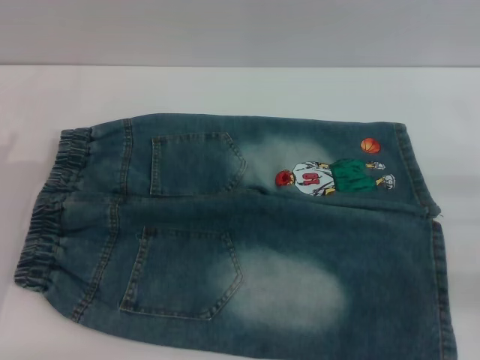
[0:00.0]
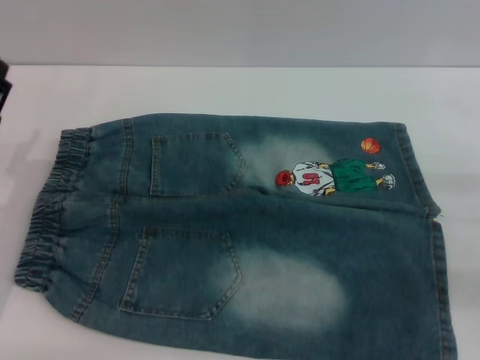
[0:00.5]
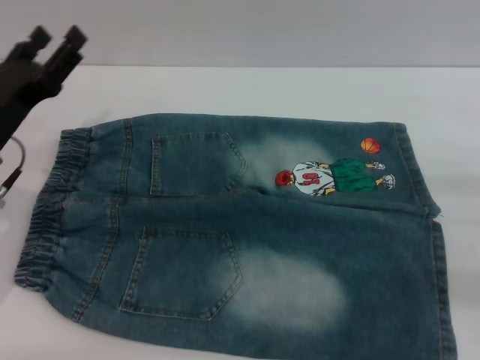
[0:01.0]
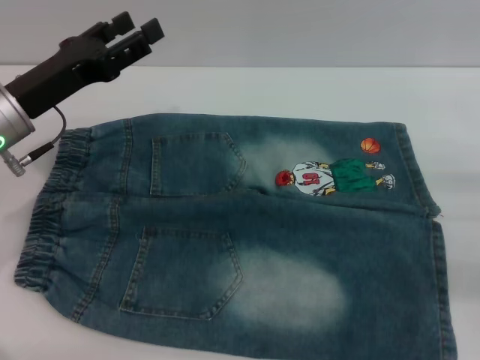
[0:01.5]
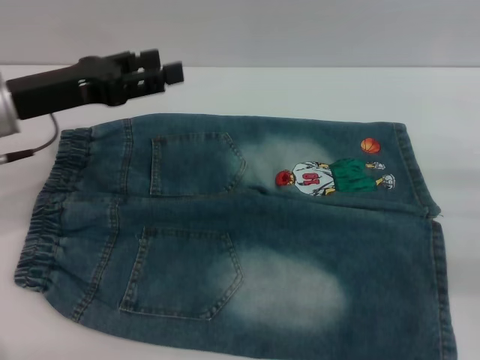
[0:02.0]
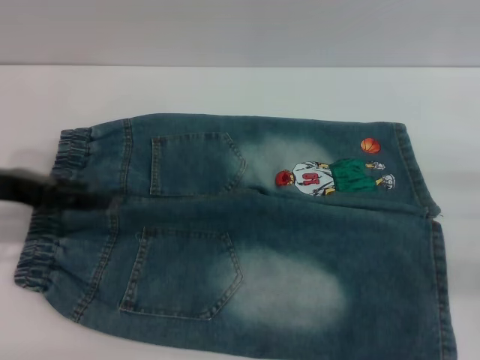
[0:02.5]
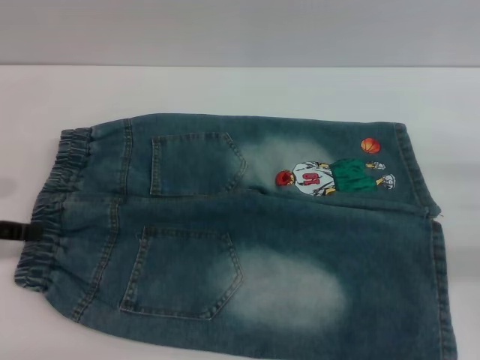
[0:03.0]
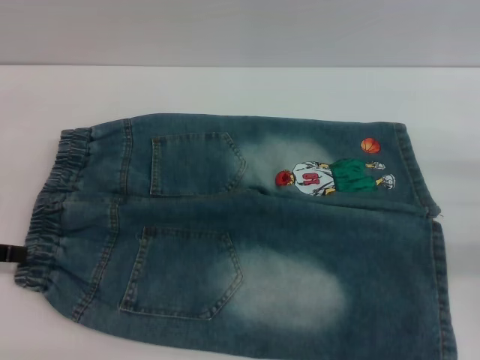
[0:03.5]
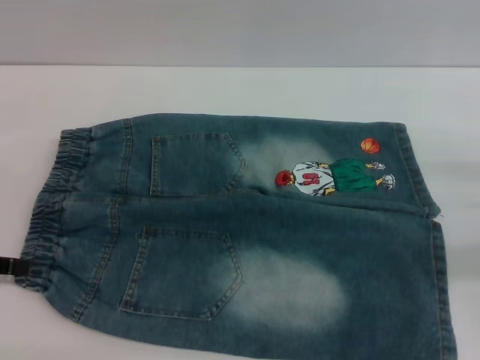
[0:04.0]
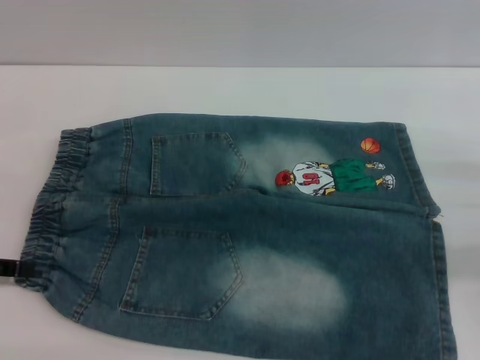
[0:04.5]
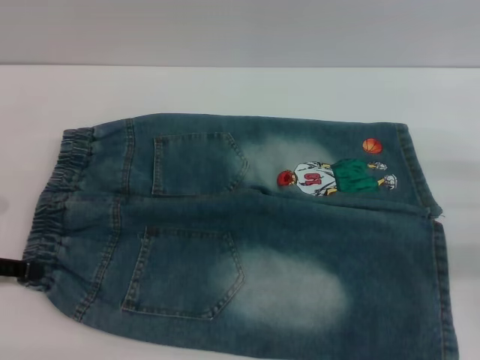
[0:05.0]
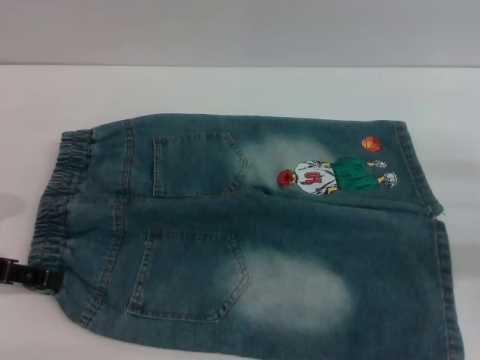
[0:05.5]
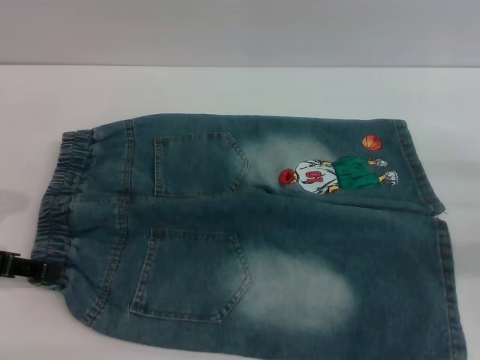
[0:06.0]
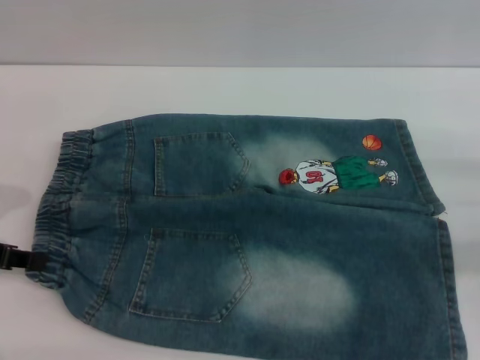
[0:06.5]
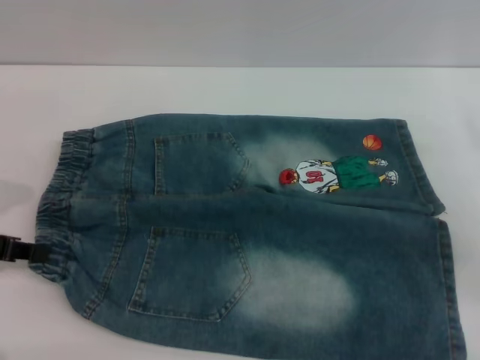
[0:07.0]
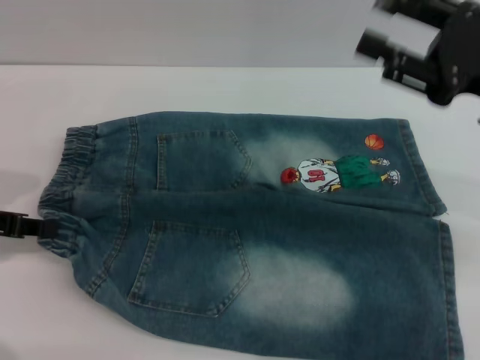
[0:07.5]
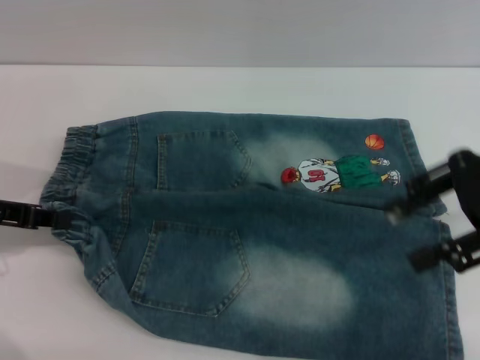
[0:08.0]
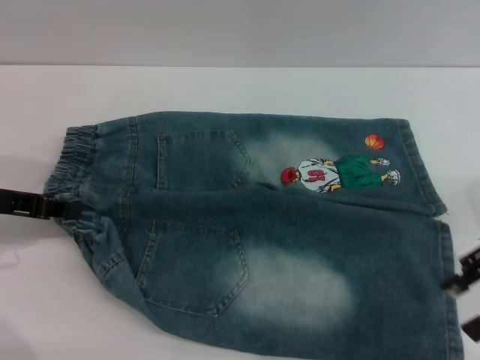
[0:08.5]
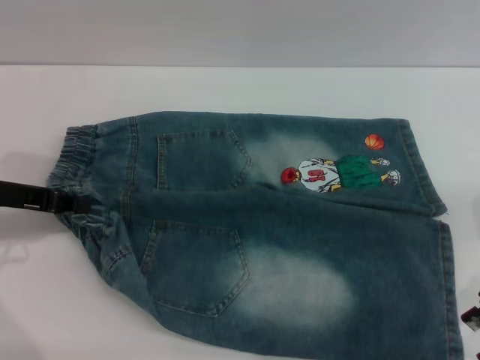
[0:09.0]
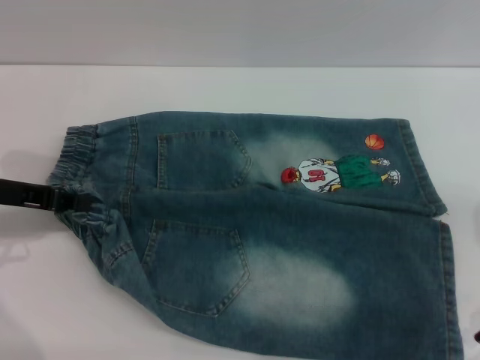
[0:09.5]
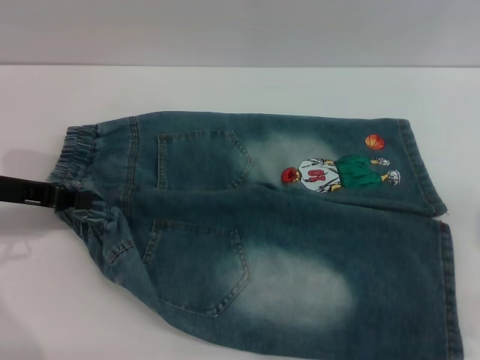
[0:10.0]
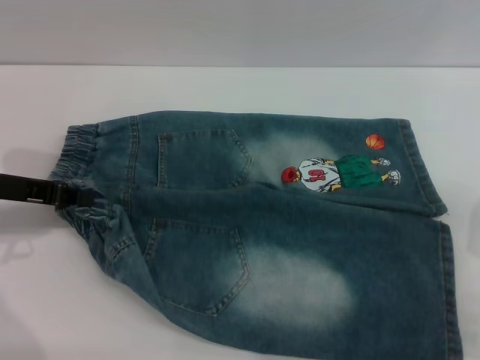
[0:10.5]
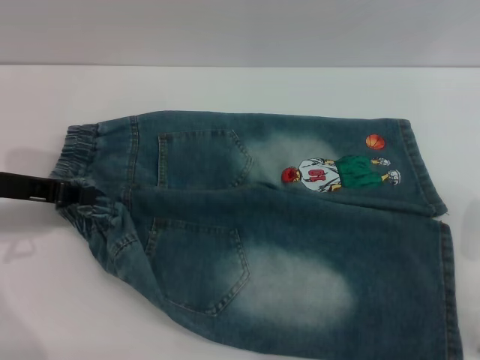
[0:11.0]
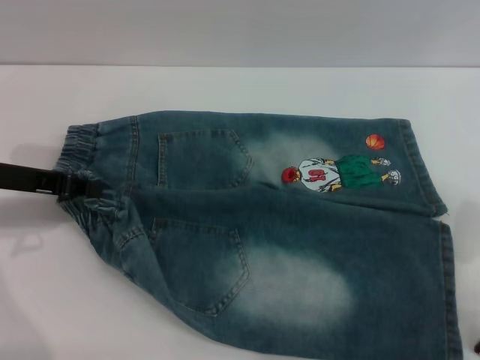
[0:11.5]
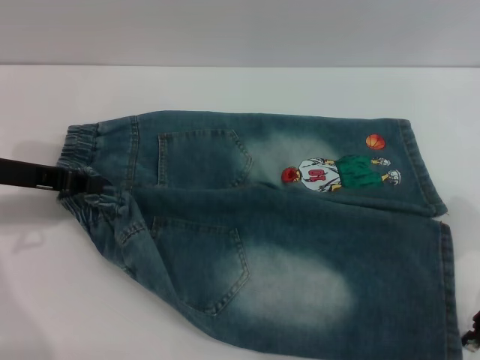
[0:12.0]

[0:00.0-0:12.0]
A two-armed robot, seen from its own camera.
0:00.0 to 0:02.0: The left gripper heads upward and forward, covering some 15 cm.
0:02.0 to 0:04.0: The left gripper is displaced to the left and backward by some 15 cm.
0:04.0 to 0:06.0: The grippers stay close to where they were, moving slightly.
0:06.0 to 0:08.0: The left gripper closes up. Meanwhile the right gripper heads upward and to the left, covering about 15 cm.
0:08.0 to 0:10.0: The right gripper is displaced downward and to the right by roughly 10 cm.
0:10.0 to 0:12.0: There are only small adjustments of the grippers.

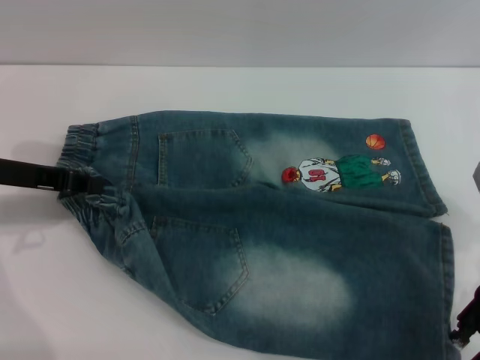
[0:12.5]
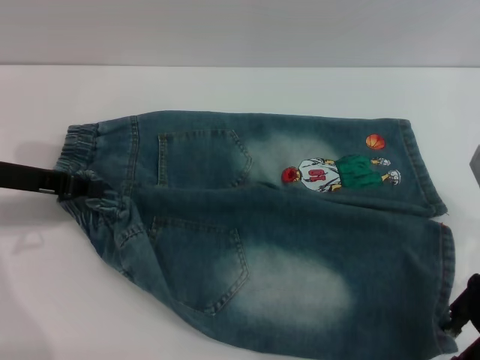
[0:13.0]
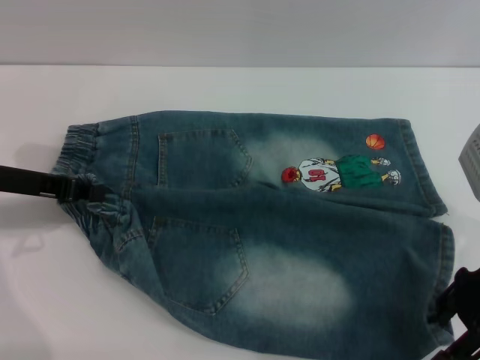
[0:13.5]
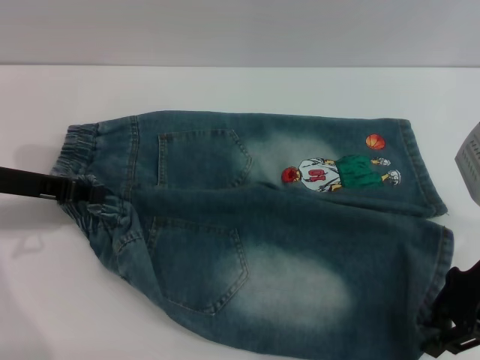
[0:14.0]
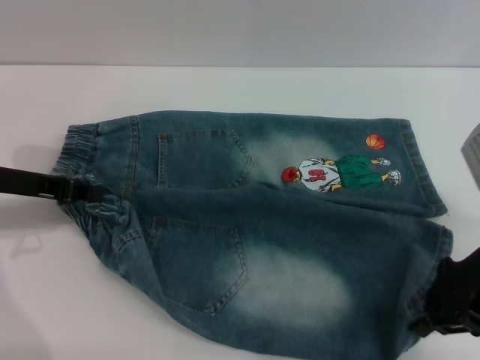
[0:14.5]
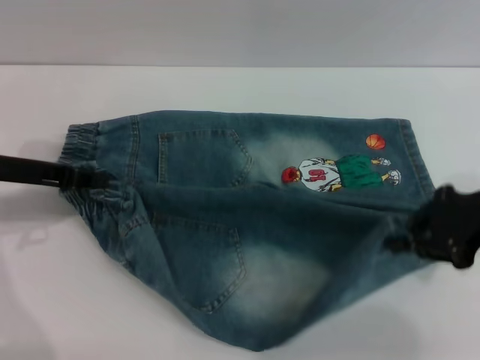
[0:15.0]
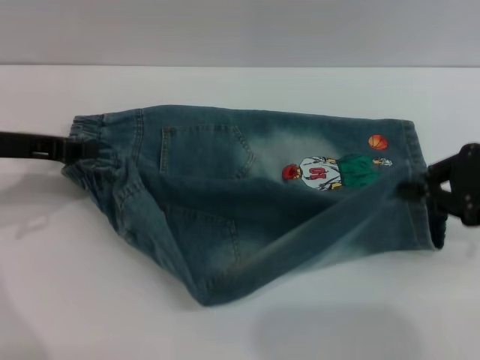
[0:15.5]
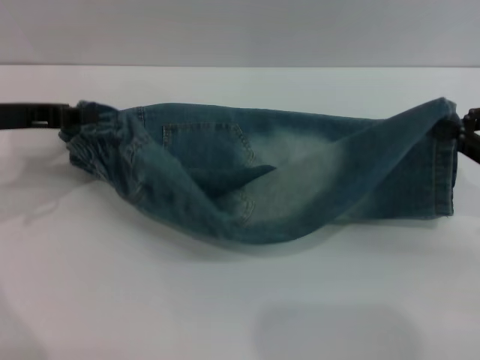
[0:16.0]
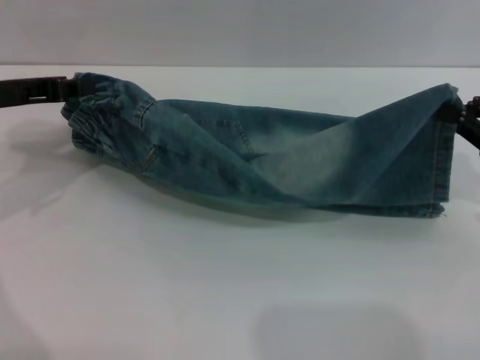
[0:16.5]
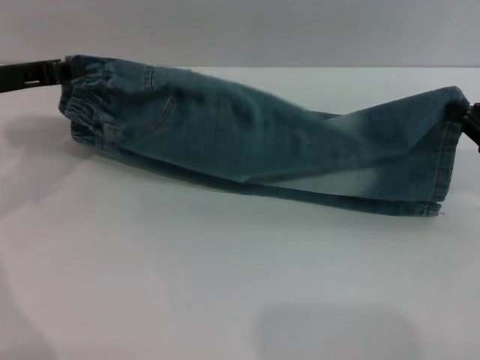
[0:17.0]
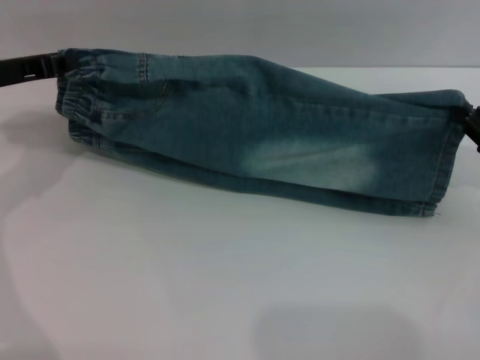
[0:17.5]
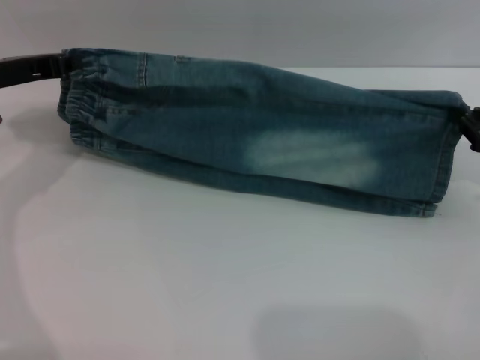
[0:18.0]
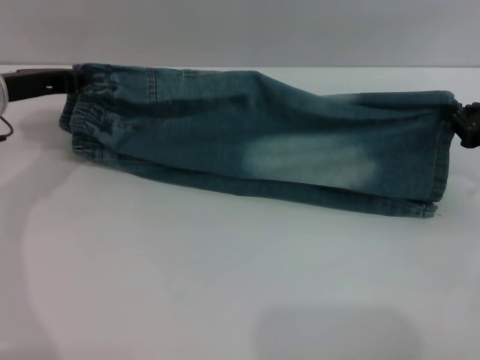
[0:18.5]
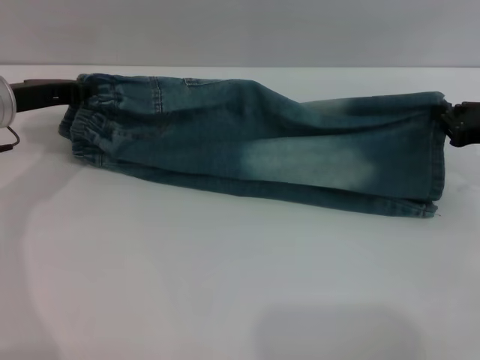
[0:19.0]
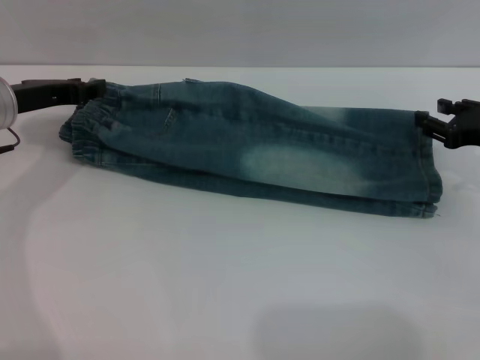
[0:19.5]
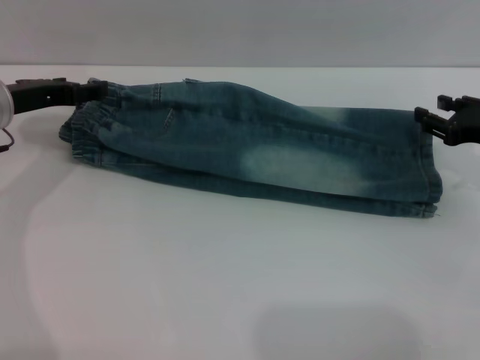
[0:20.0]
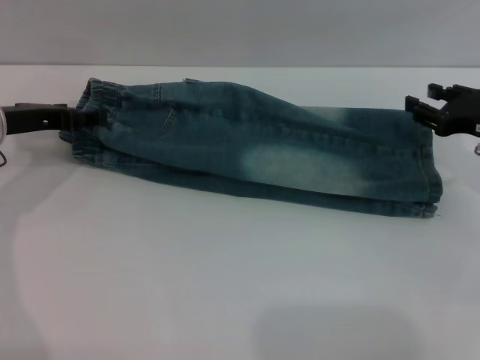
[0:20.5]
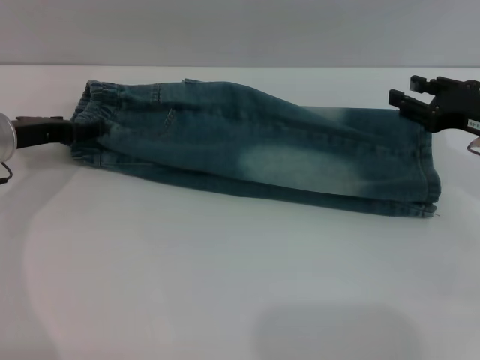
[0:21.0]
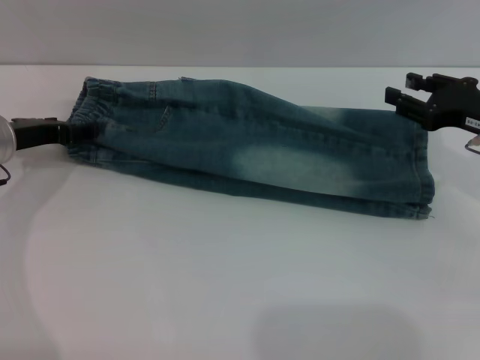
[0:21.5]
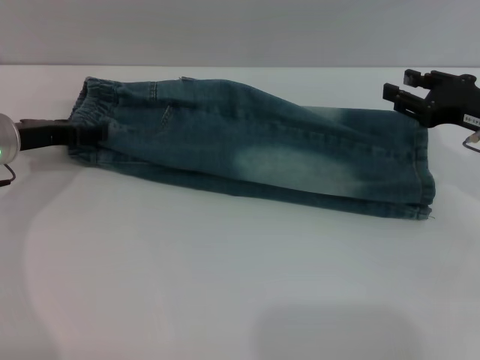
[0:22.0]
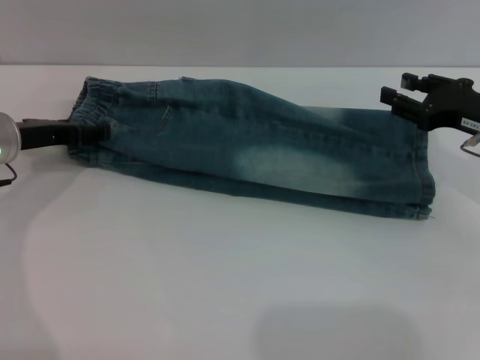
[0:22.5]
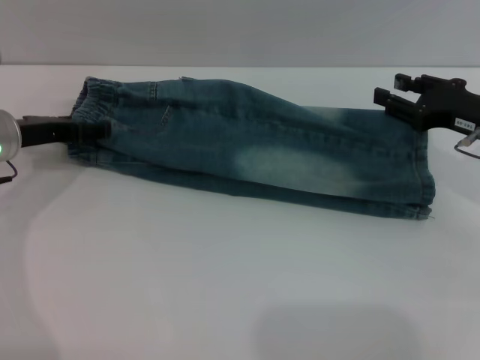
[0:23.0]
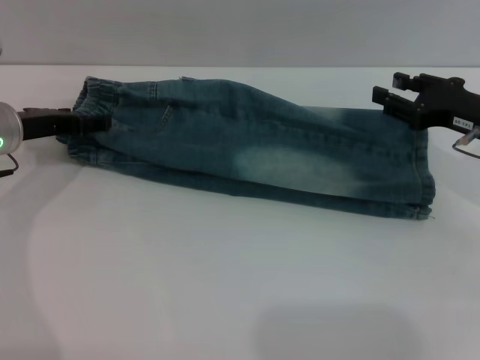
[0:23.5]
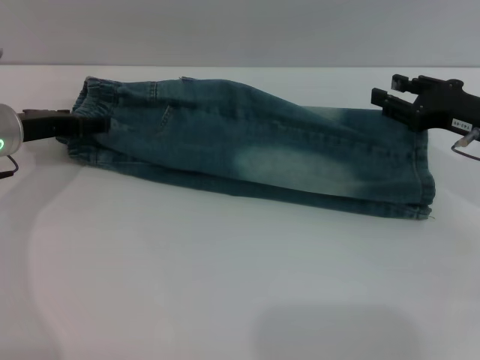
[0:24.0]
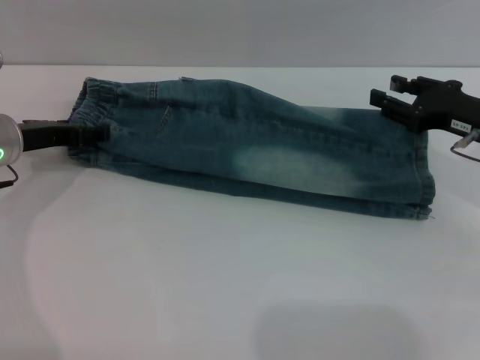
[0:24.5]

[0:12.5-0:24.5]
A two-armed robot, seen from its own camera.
Step, 0:12.5 to 0:20.0: Fold the bottom of the pants upward with both grippers.
0:12.5 to 0:14.5: The right gripper closes.
0:14.5 to 0:16.5: The right gripper travels to the right by roughly 10 cm.
0:16.5 to 0:18.5: The right gripper shifts by approximately 5 cm.
0:18.5 to 0:20.5: The right gripper opens up; the left gripper opens its fingers.
0:20.5 to 0:22.5: The grippers move only a little.
0:22.5 to 0:24.5: The two grippers keep their place.

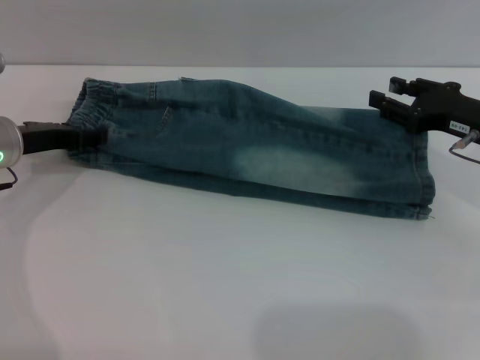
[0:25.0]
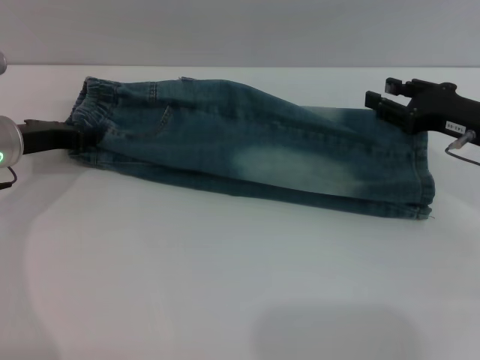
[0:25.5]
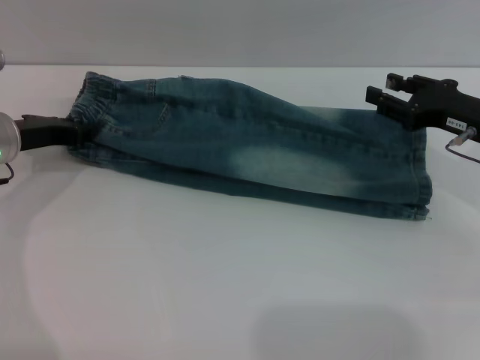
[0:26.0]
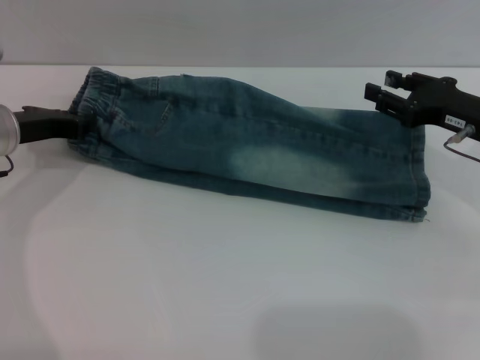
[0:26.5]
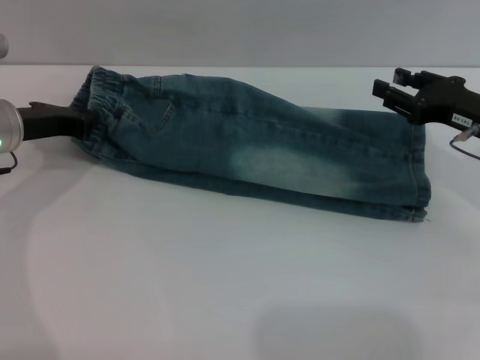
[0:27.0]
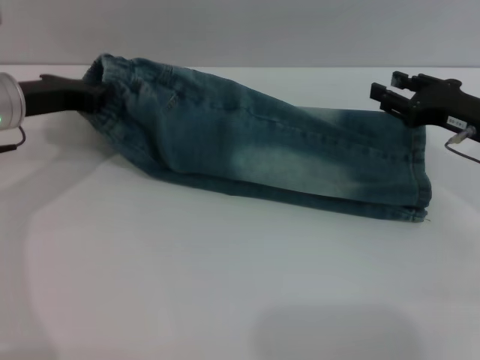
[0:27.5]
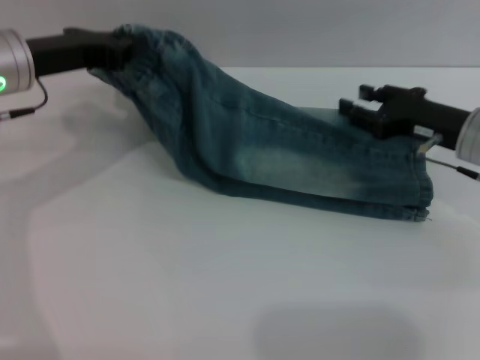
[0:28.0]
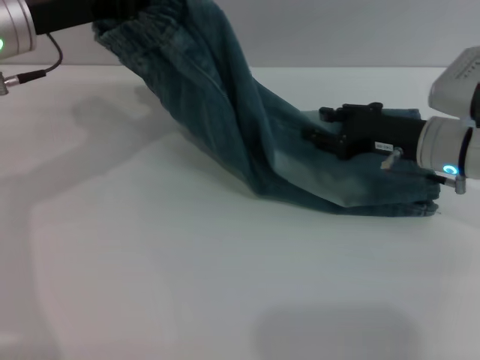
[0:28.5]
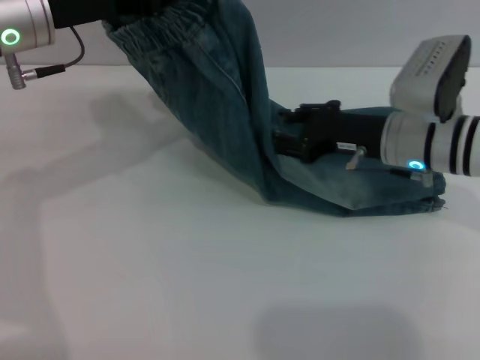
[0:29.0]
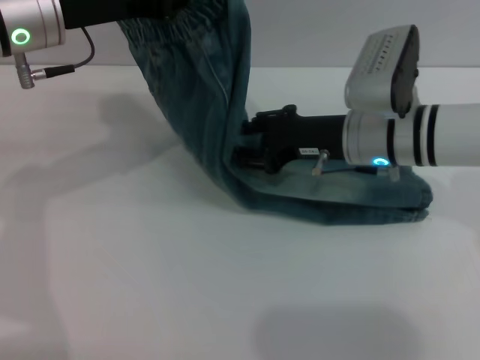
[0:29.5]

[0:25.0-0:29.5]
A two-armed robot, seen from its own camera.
0:25.0 to 0:27.0: The left gripper closes its fingers.
0:27.0 to 0:29.5: The right gripper shifts some 15 cm to the left. Meanwhile the left gripper is displaced upward and to the right by about 15 cm.
